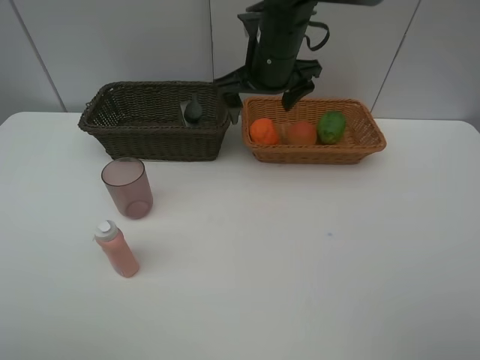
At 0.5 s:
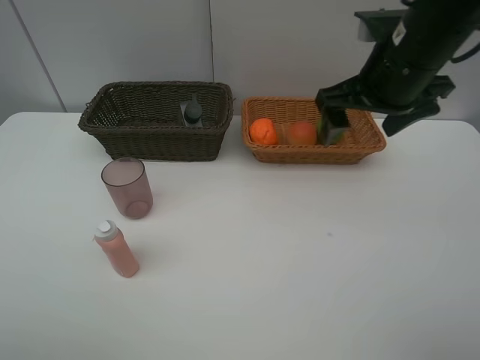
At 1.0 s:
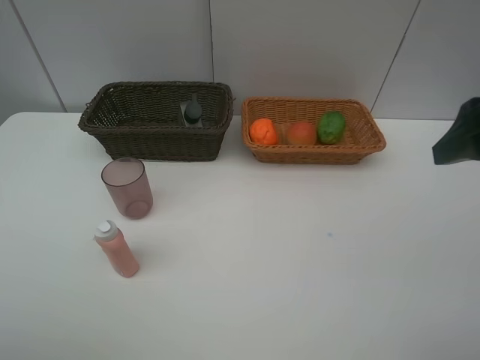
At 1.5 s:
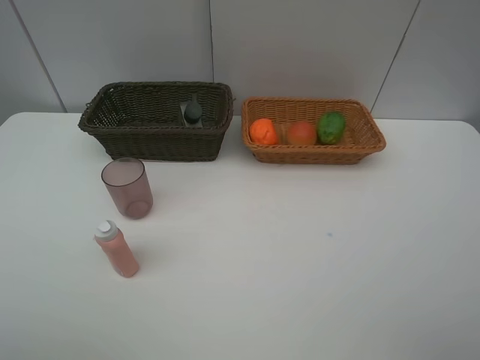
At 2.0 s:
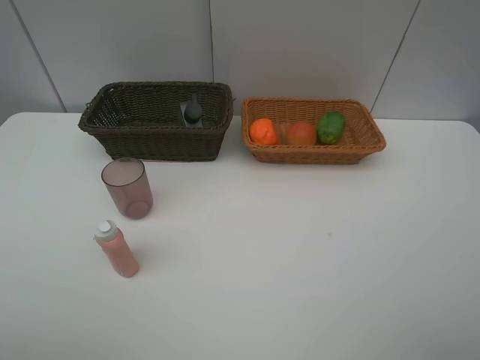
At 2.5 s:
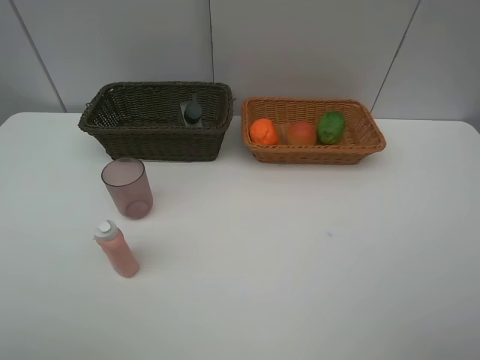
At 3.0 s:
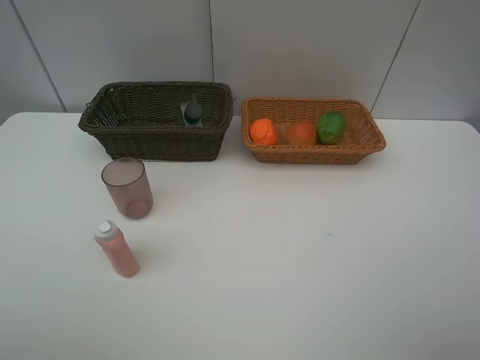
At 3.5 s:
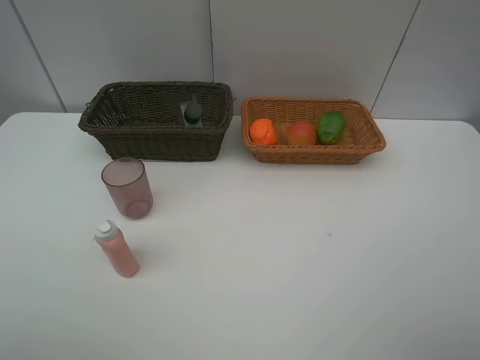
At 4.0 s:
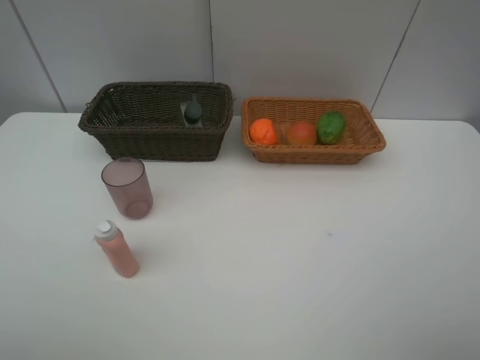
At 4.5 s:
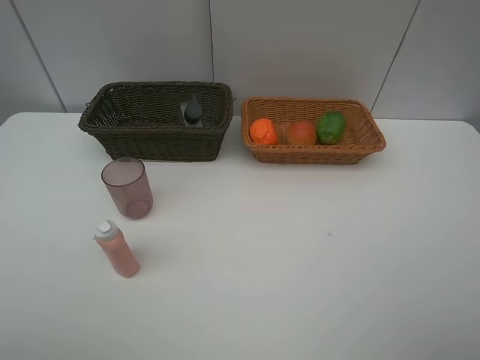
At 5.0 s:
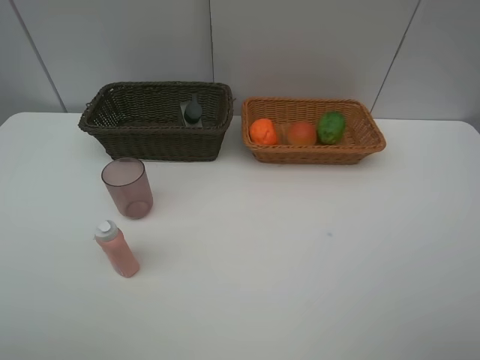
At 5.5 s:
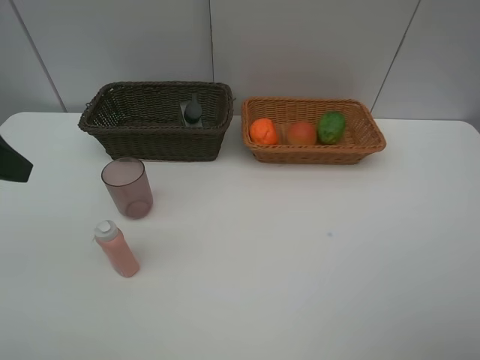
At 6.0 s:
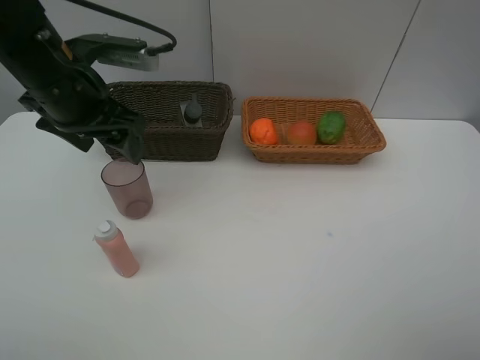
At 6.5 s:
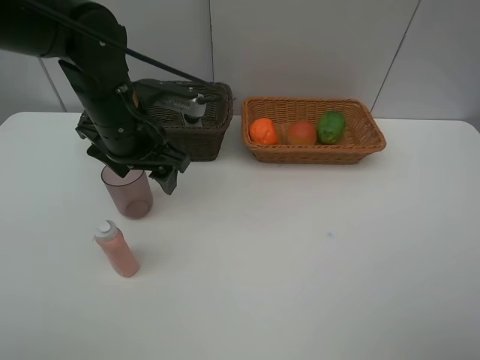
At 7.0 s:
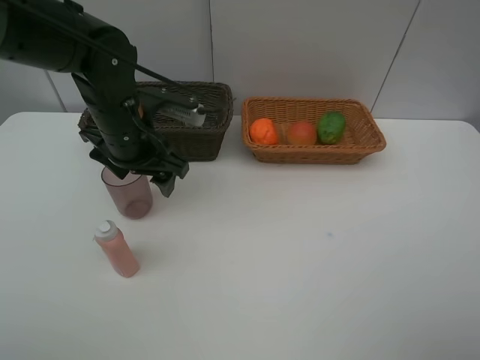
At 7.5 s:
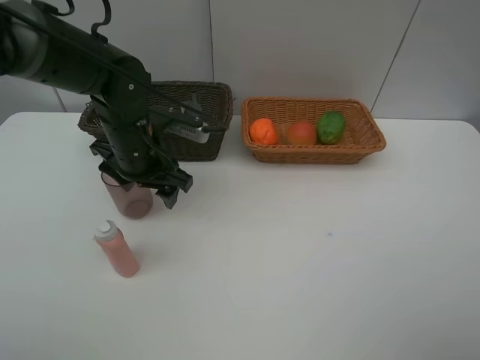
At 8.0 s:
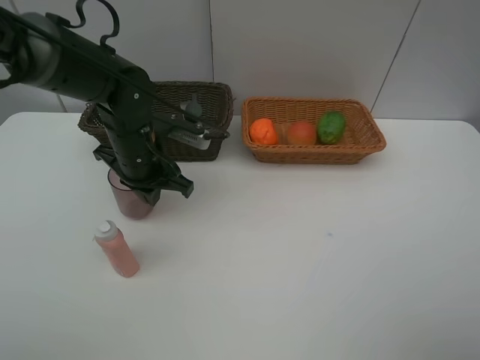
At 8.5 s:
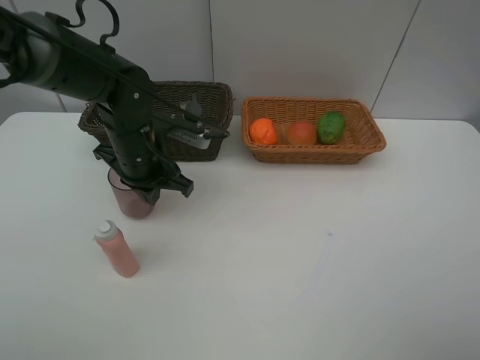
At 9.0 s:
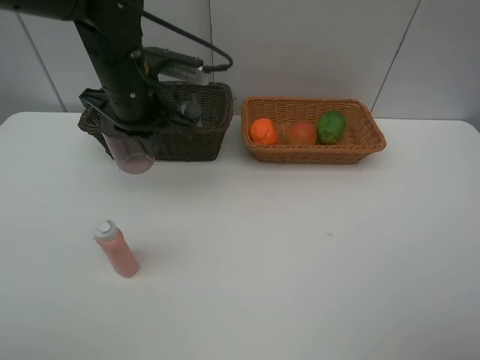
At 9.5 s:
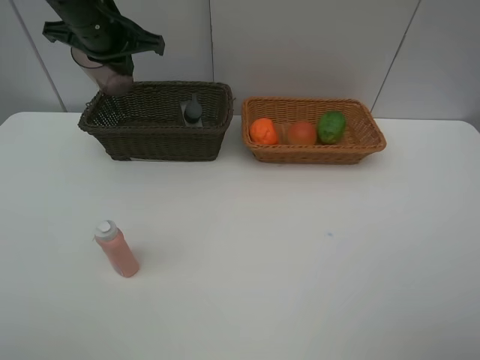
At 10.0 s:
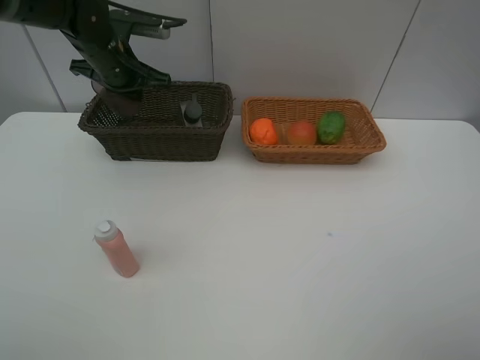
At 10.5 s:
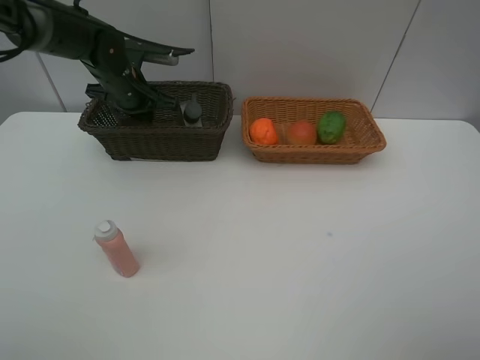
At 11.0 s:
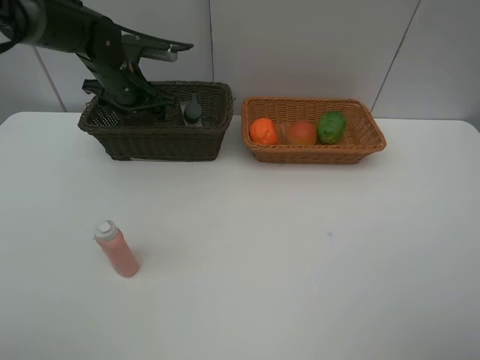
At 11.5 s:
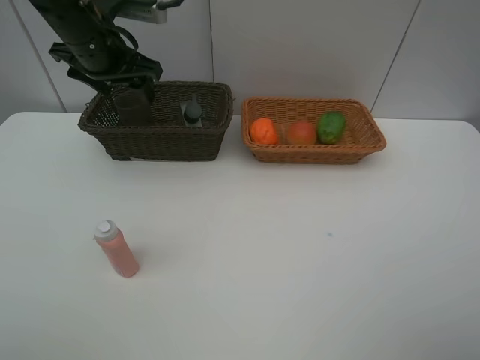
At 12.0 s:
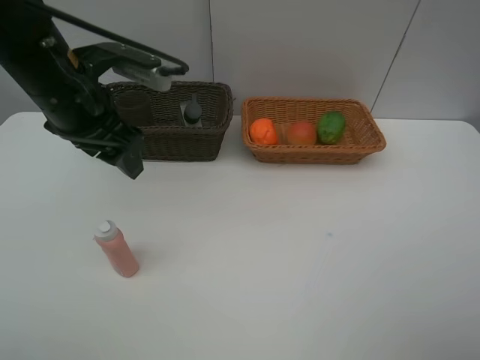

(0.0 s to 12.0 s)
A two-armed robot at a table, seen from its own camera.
Task of the whole recording: place multiple objects separately in different baskets.
0.0 s - 2.0 s: The right gripper heads backward and to the right, covering some 50 cm.
4.0 s - 6.0 s: The left gripper travels forward by about 30 cm.
6.0 s - 8.0 s: The left gripper heads downward, covering approximately 10 cm, and closes.
8.0 s - 10.0 s: The left gripper goes approximately 15 cm forward, upward and to the left.
10.0 s - 12.0 s: The left gripper moves backward, roughly 15 cm, and opens up.

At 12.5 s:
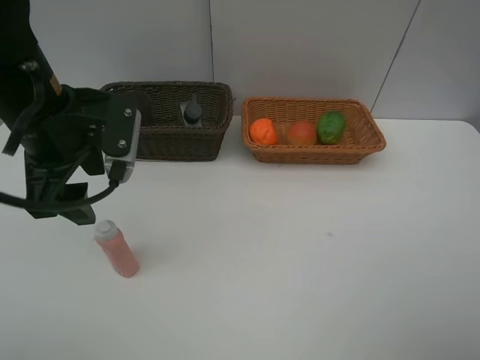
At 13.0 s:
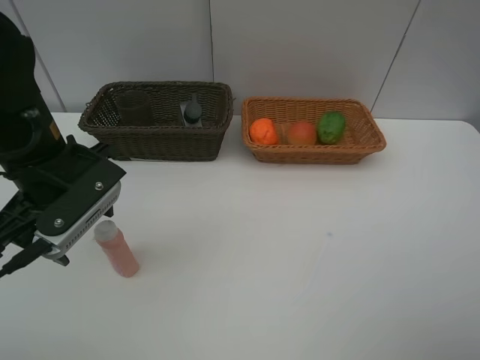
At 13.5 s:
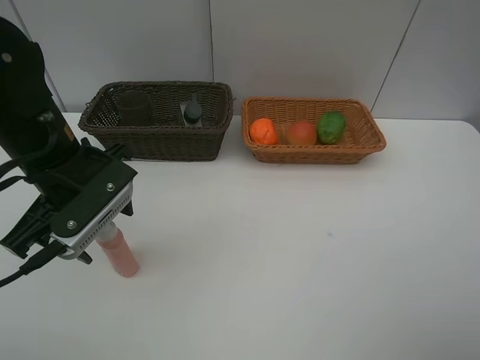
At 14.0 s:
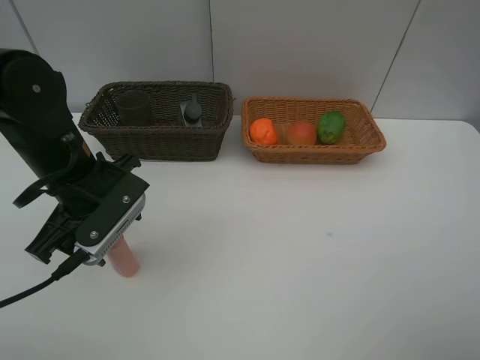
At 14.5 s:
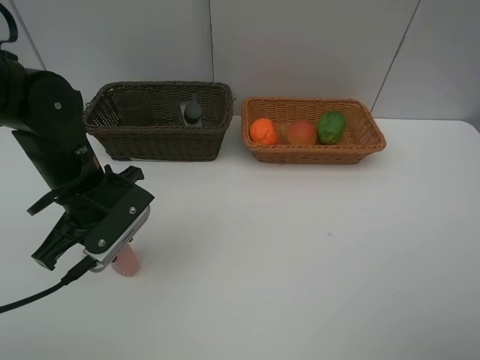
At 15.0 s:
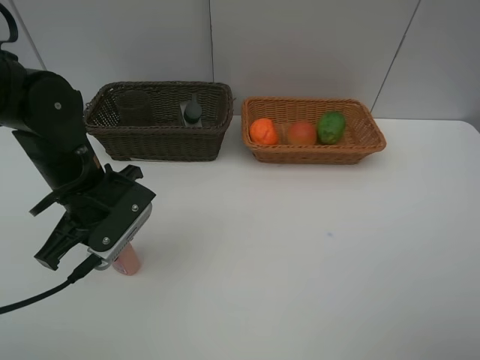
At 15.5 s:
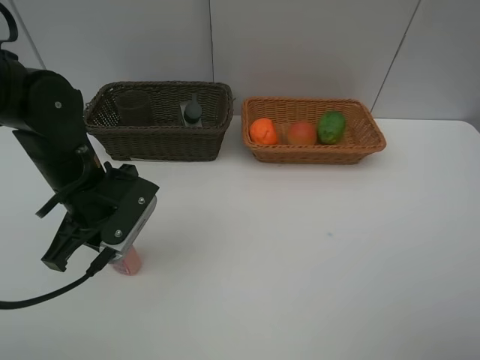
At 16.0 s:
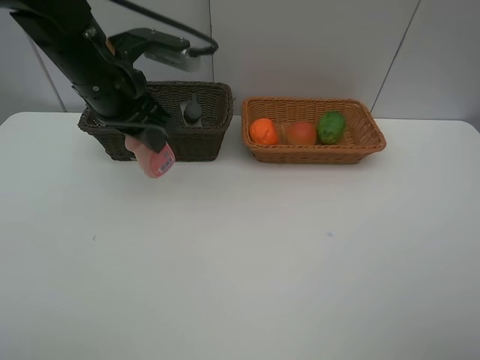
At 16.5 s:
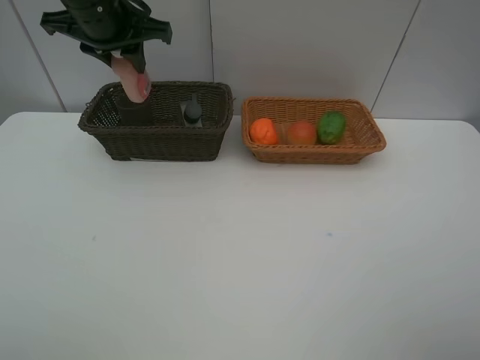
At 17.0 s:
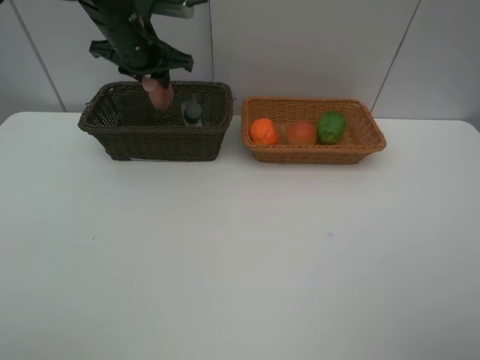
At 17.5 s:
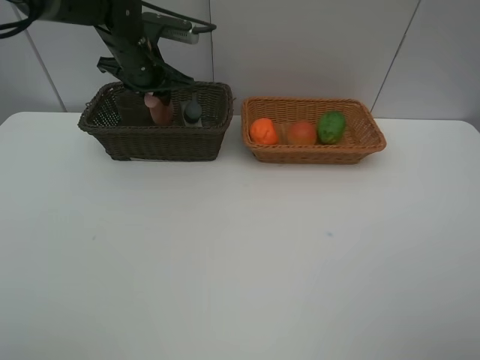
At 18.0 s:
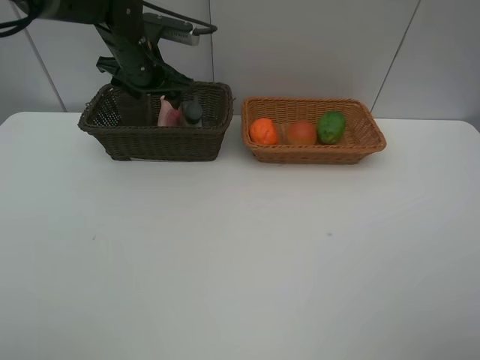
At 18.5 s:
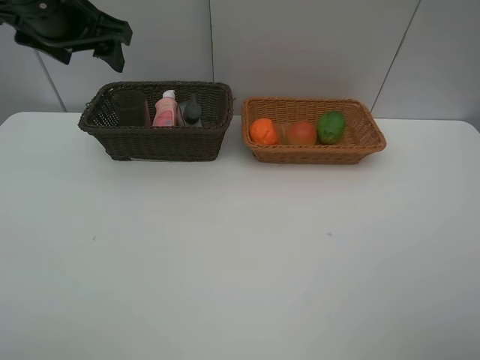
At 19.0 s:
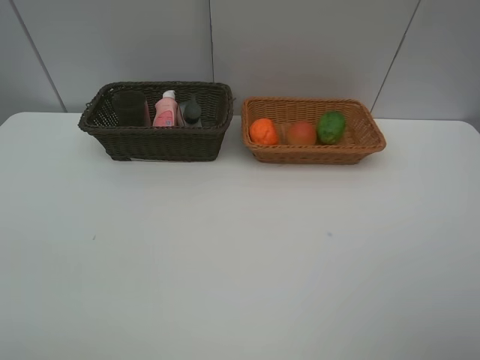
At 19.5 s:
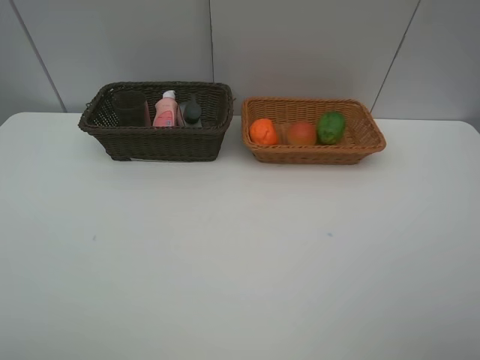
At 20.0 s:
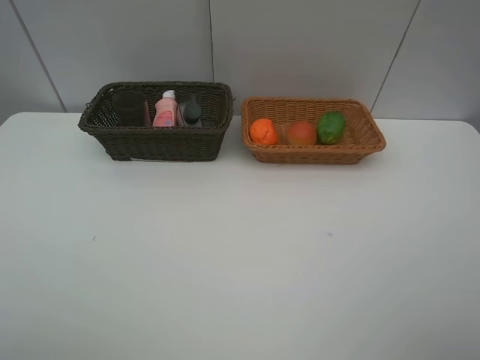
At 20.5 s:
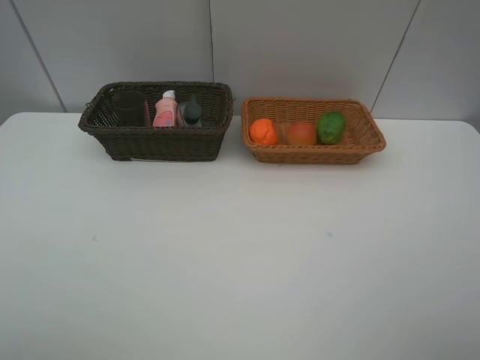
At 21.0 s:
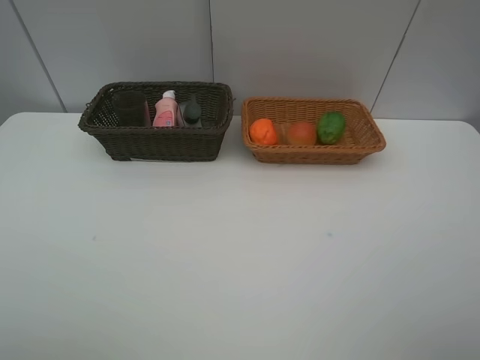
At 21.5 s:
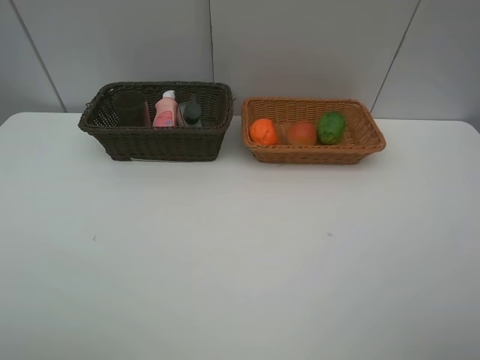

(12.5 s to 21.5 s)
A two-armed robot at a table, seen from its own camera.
Task of the whole recording: place multiple objects separately in different baskets.
12.5 s - 14.5 s: The left gripper goes about 10 cm downward, and closes.
14.5 s - 17.0 s: The left gripper travels forward and upward by approximately 20 cm.
17.0 s - 19.5 s: The left gripper is displaced backward by roughly 50 cm, and opens.

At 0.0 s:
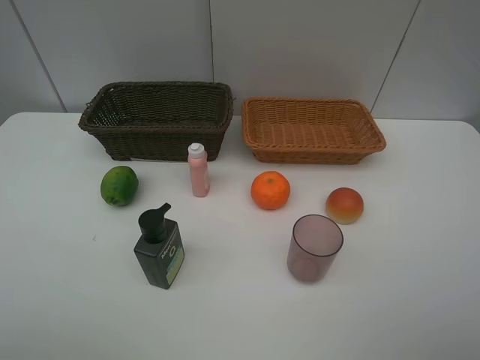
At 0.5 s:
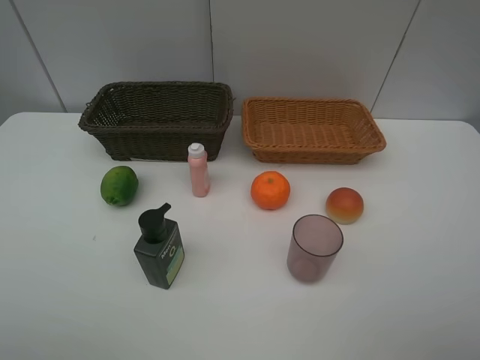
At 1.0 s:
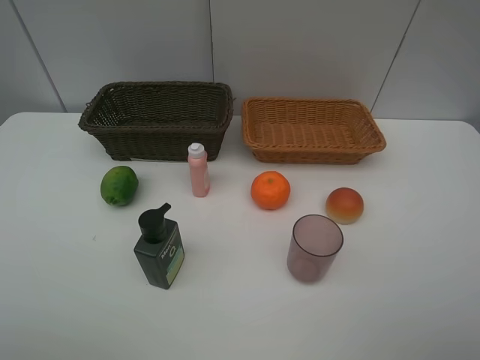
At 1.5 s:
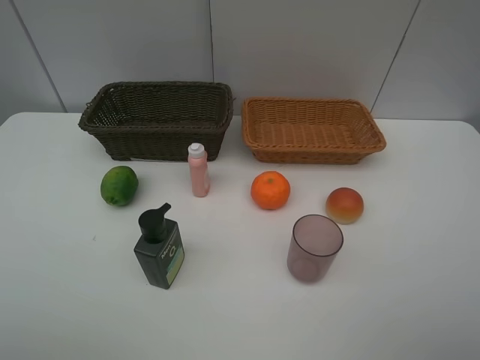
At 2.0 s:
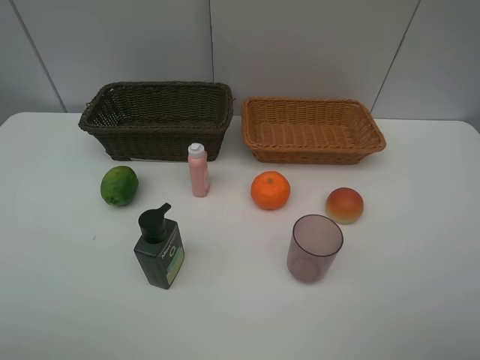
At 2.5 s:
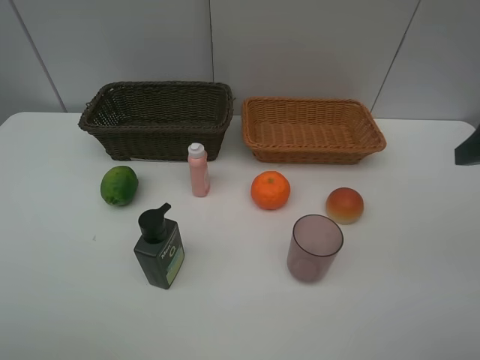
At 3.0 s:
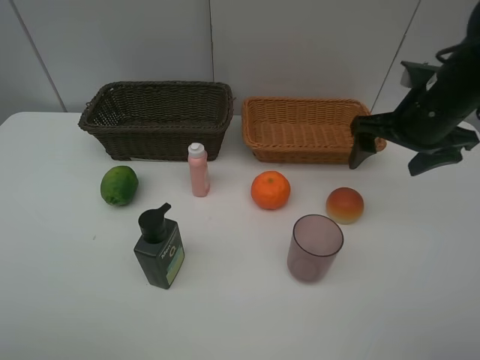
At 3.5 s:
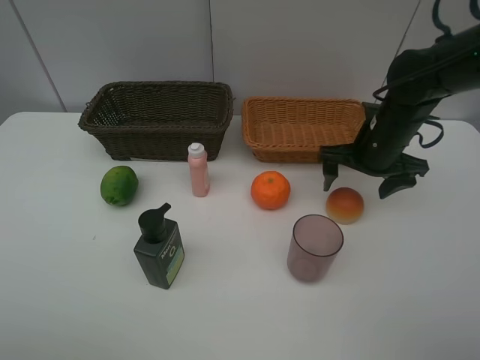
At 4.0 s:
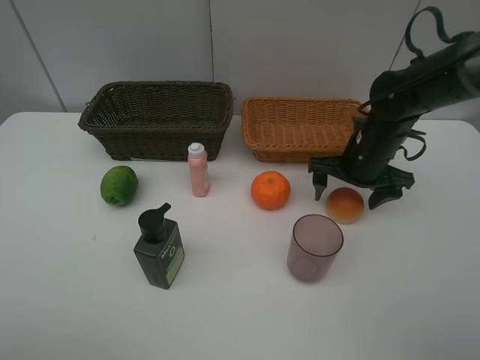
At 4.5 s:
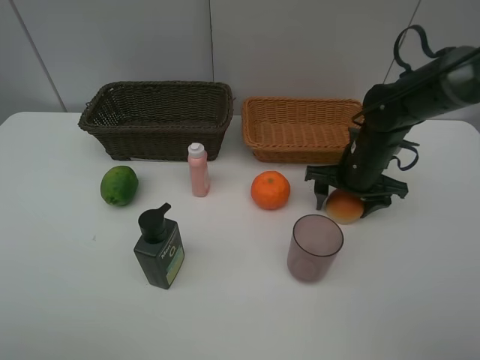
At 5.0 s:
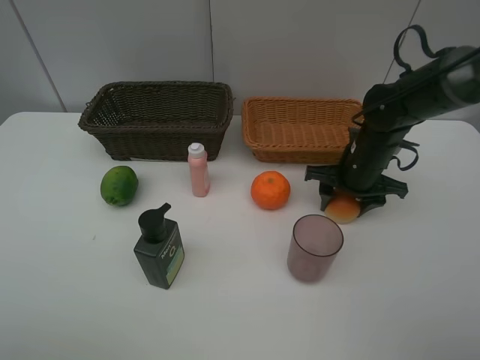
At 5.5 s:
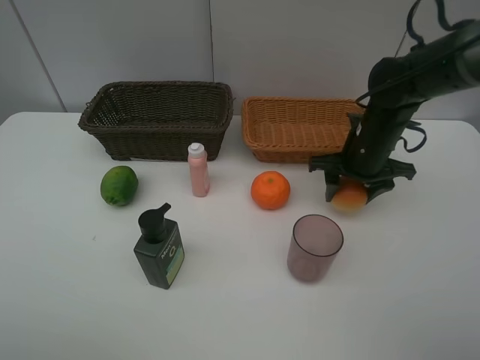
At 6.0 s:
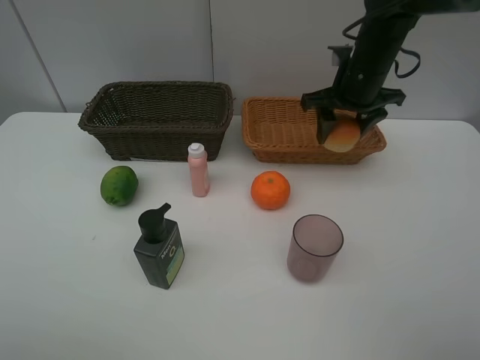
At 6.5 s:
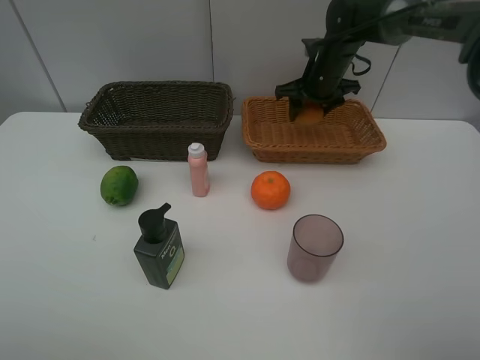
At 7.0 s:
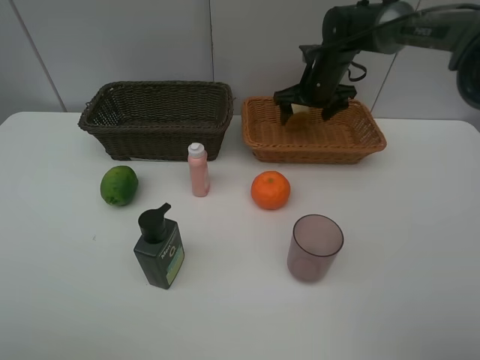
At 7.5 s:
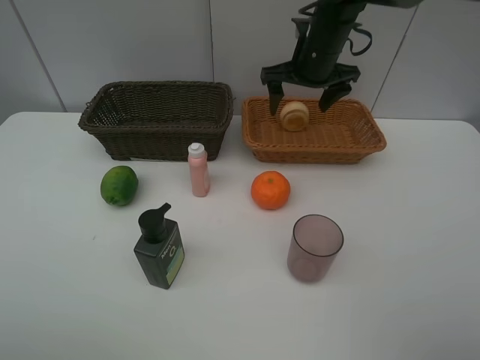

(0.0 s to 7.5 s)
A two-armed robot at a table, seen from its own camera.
Task of the whole recording: place multiple objects separately in different baskets.
0.0 s - 2.0 s: Neither gripper changes place.
2.0 s - 4.0 s: The right gripper shifts roughly 35 cm forward and downward.
4.0 s - 5.5 s: The right gripper closes.
5.5 s - 7.5 s: The right gripper is displaced forward, upward and to the left by approximately 15 cm, and opens.
